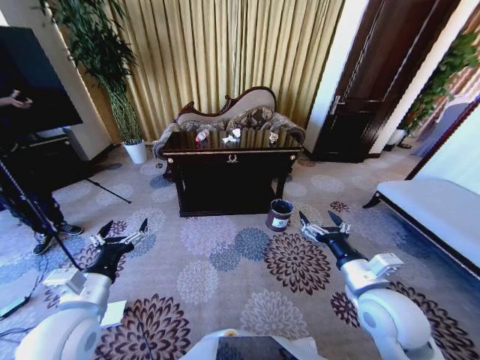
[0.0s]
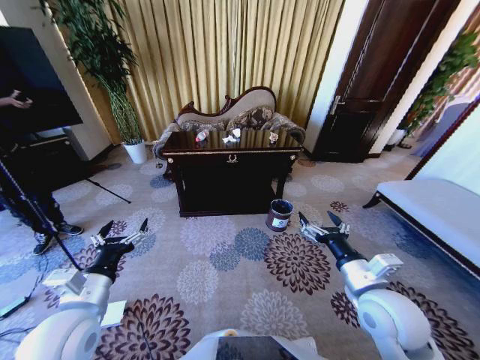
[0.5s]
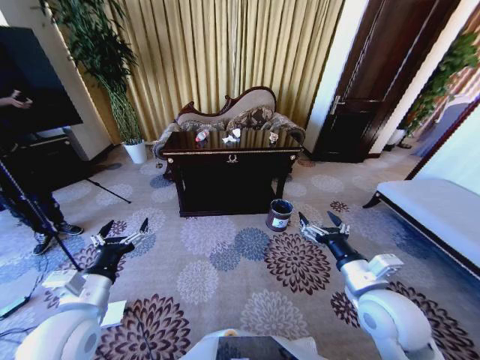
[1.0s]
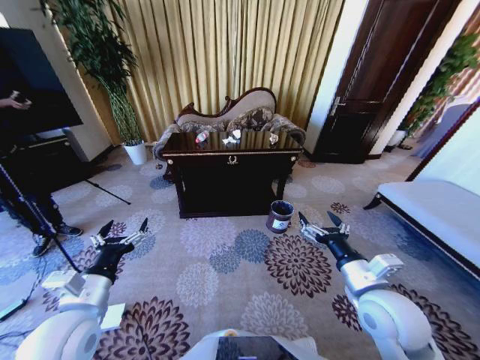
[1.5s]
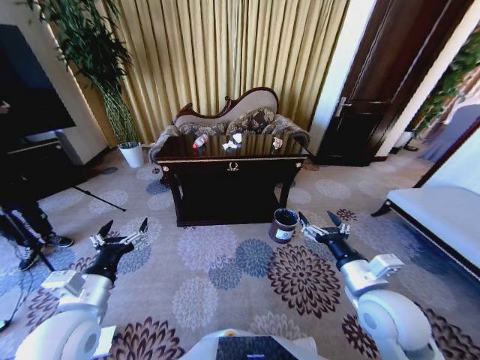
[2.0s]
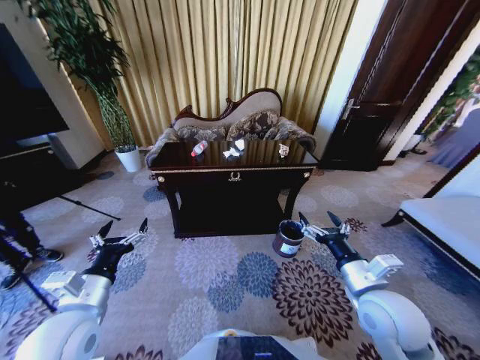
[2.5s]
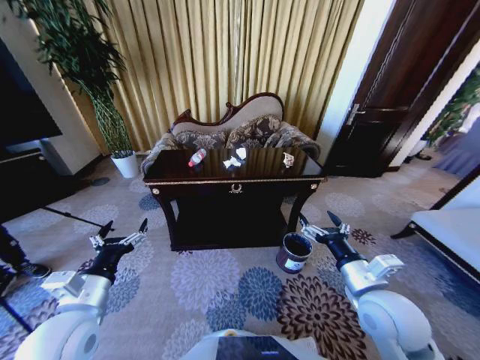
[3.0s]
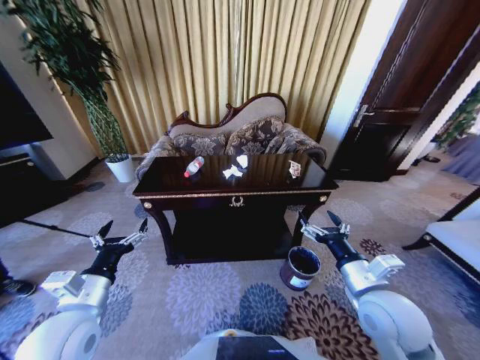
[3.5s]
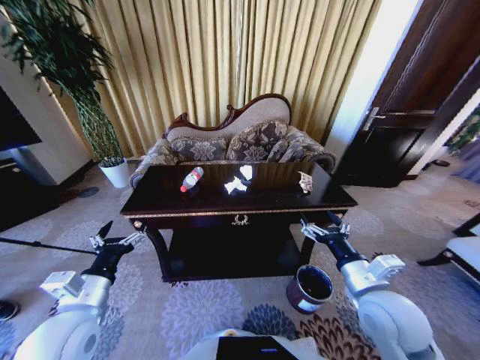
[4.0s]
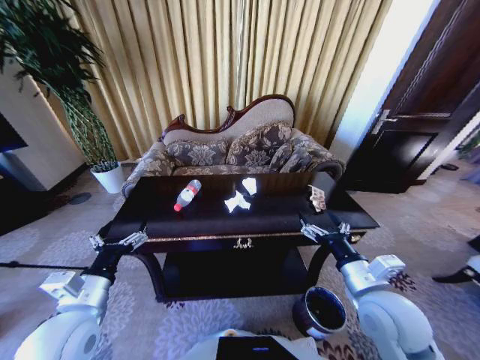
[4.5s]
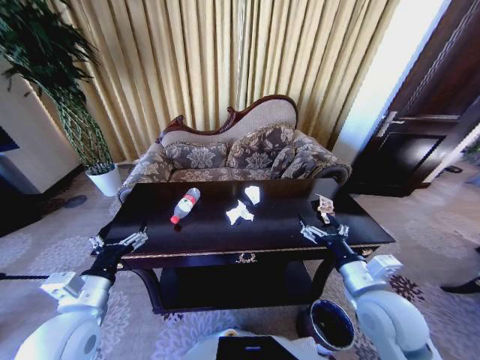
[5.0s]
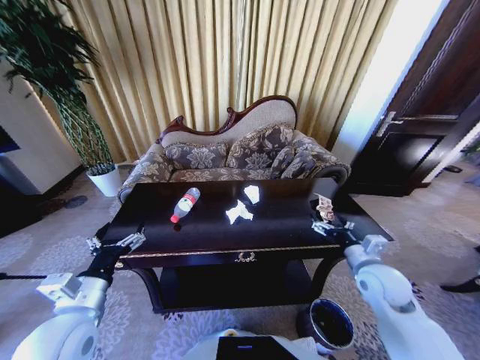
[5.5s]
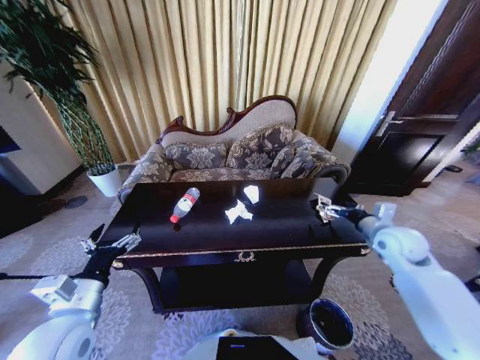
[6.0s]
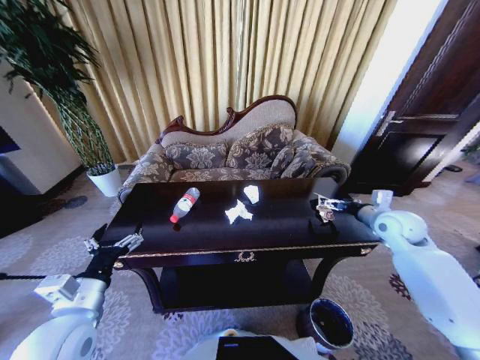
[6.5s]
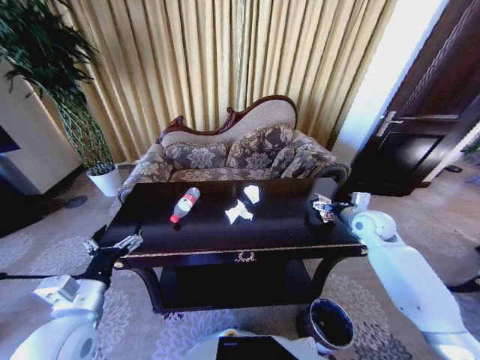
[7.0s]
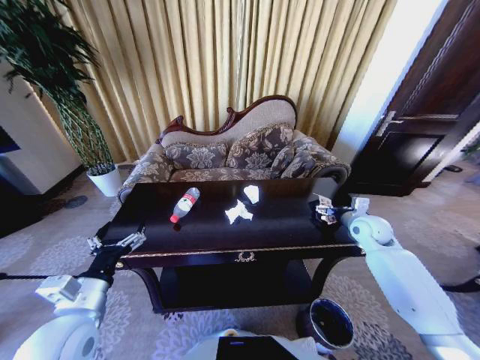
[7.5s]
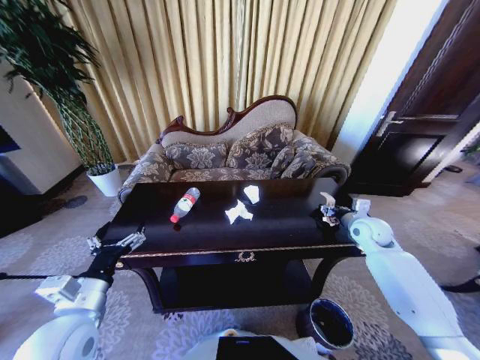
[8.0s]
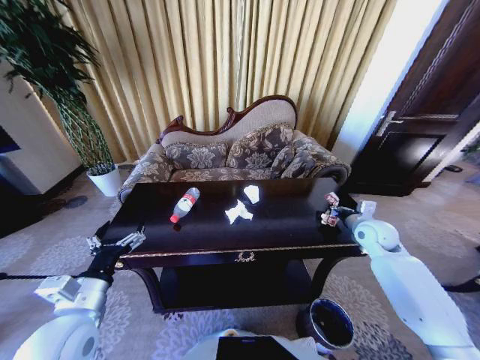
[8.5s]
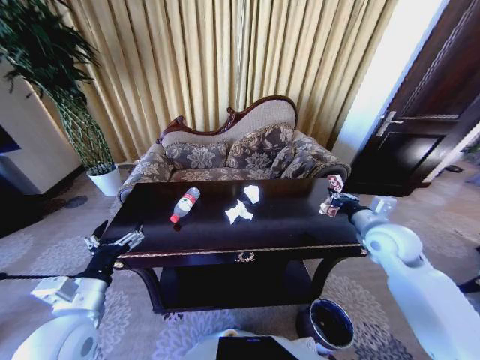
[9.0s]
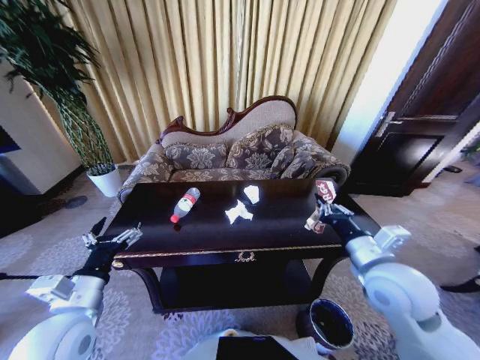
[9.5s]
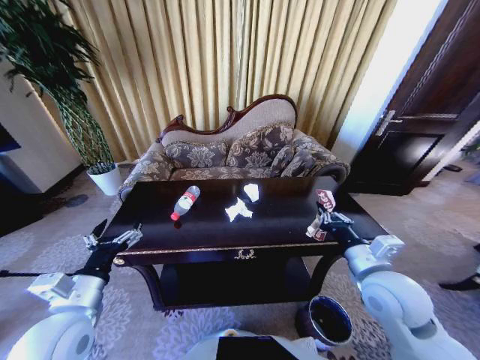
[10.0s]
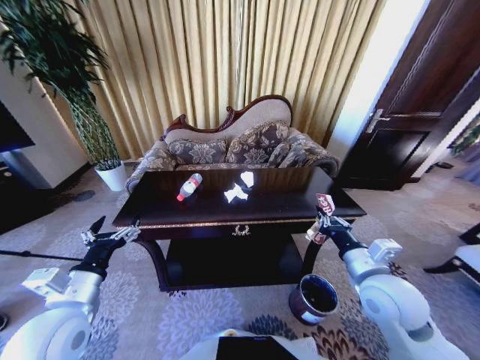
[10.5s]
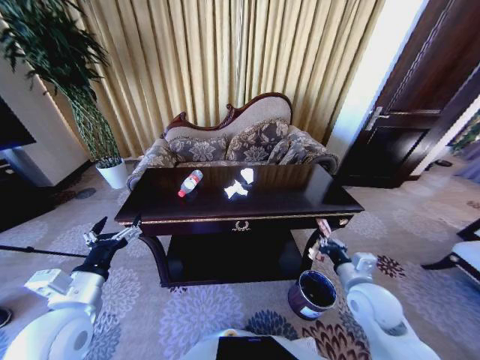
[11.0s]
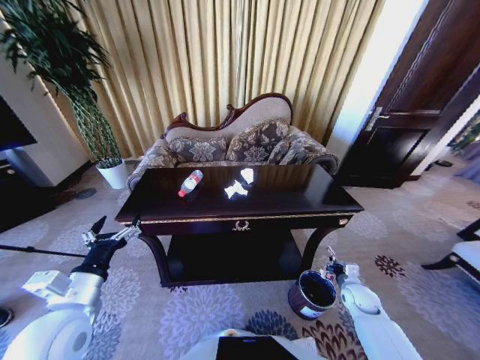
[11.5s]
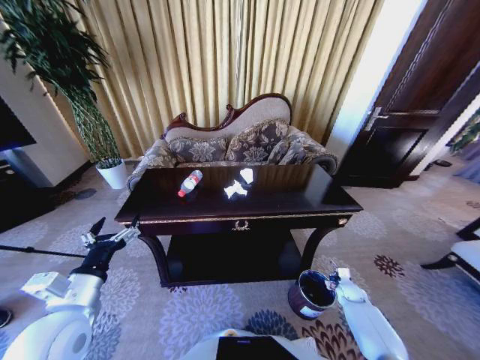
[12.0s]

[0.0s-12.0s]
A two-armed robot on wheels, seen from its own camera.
Task of the whole recording: Move to the front of the table and place the trash on the table into the trash bin.
4.0s to 6.0s: The right gripper moves forward and to the right, some 20 cm.
6.0s to 8.0s: The right gripper moves forward, about 5 cm, and closes its fingers.
8.0s to 10.0s: The right gripper goes about 25 cm backward and to the left, and closes its fingers.
10.0s to 12.0s: The right gripper shifts about 40 cm downward and to the right.

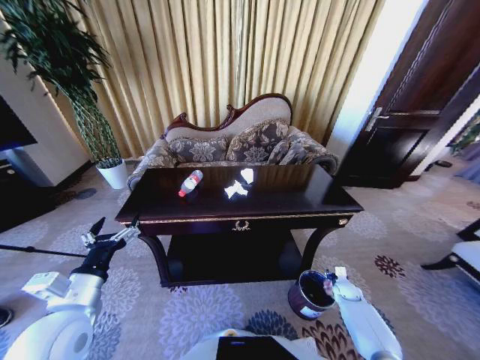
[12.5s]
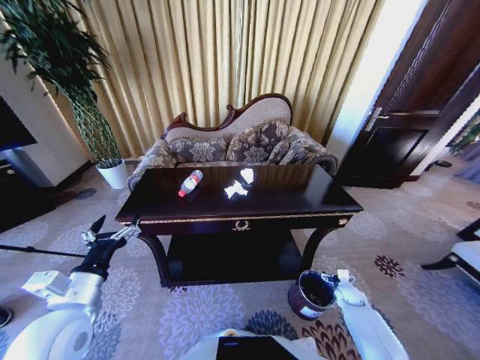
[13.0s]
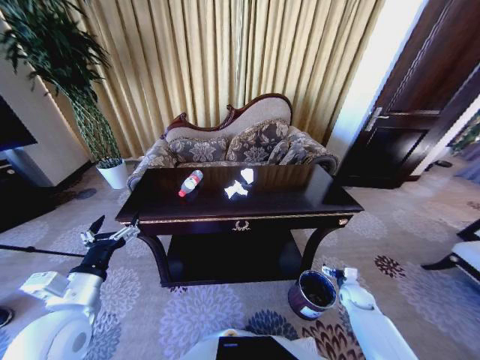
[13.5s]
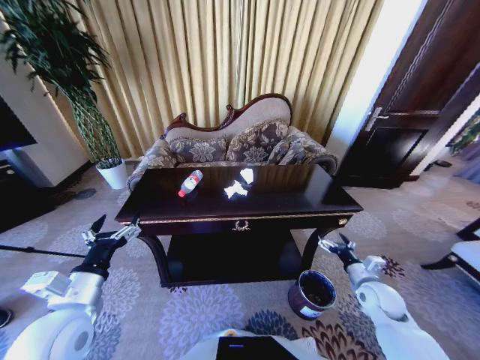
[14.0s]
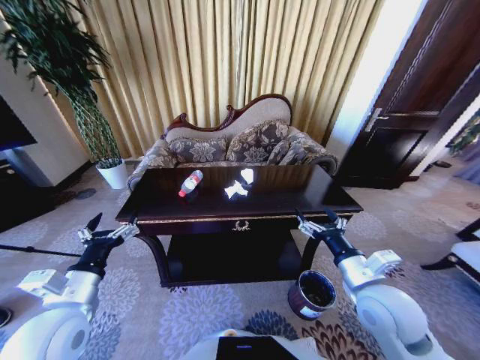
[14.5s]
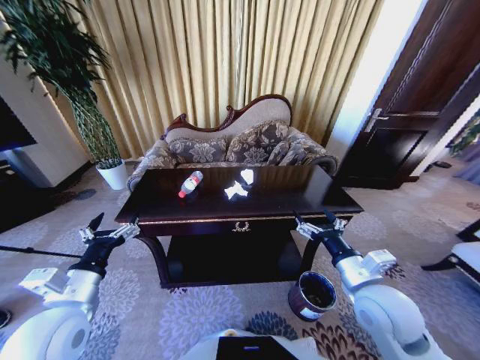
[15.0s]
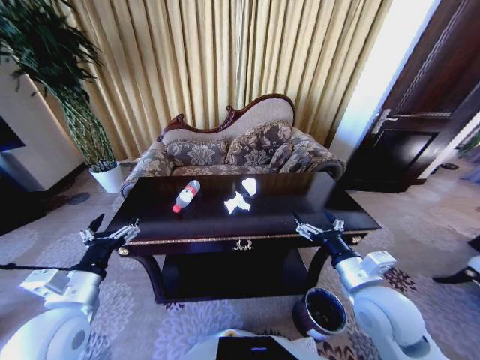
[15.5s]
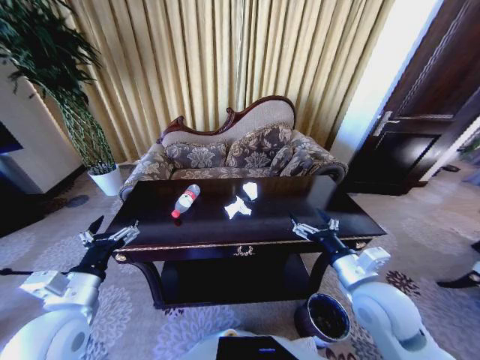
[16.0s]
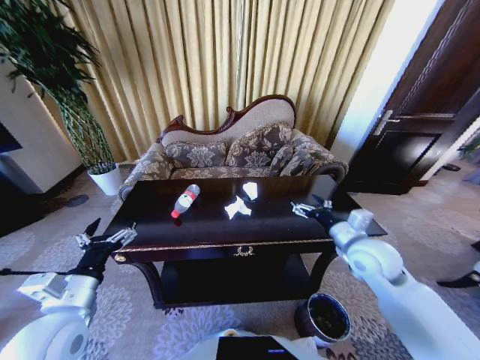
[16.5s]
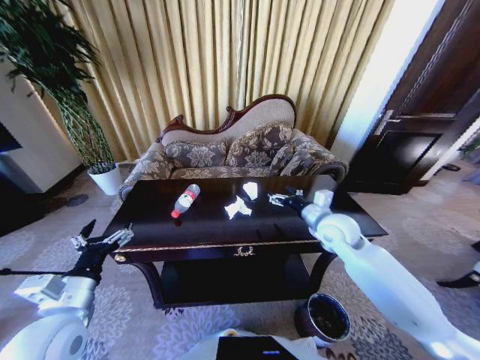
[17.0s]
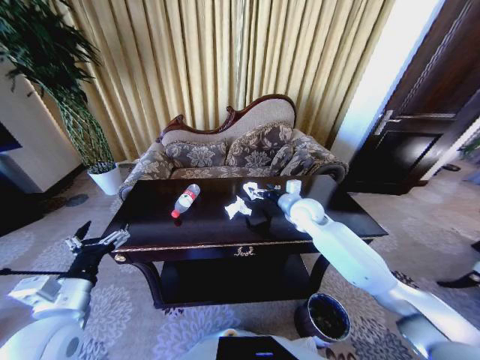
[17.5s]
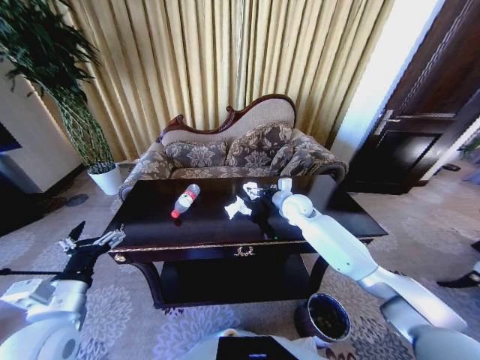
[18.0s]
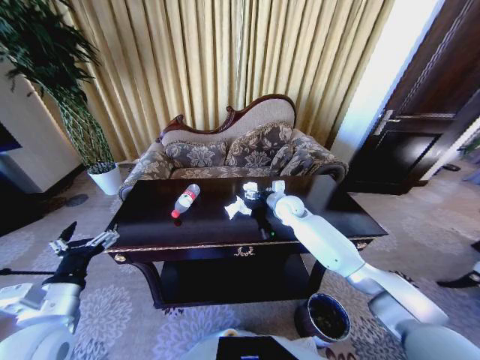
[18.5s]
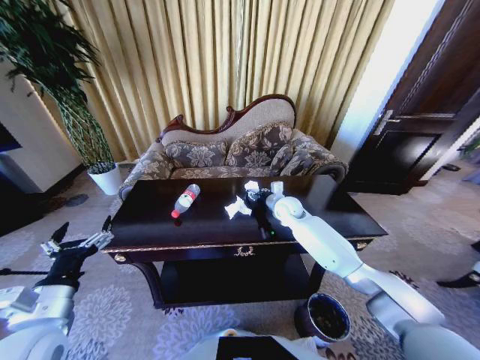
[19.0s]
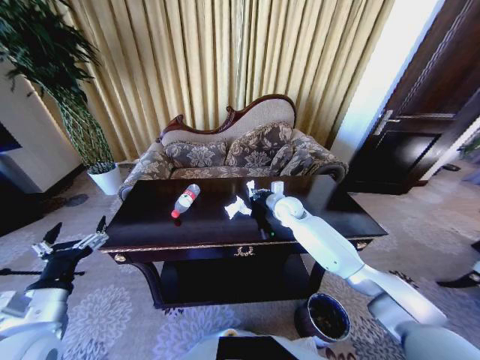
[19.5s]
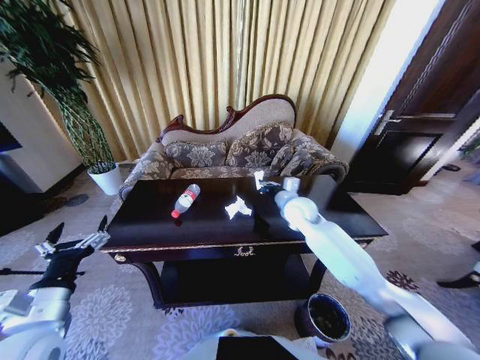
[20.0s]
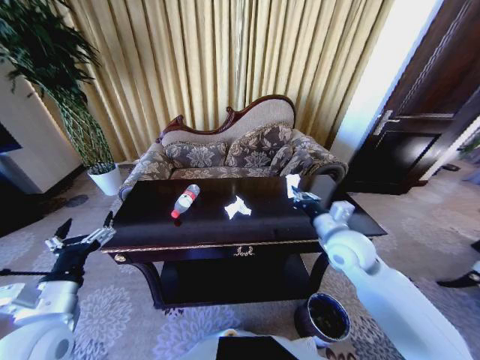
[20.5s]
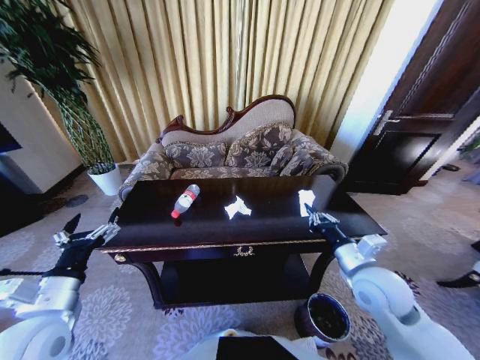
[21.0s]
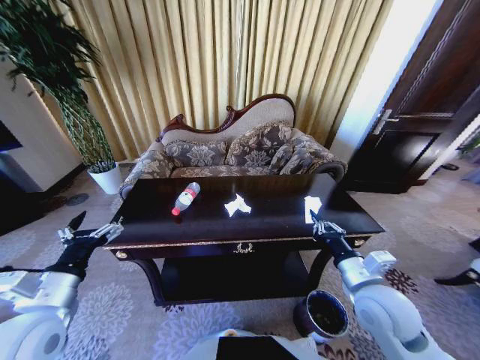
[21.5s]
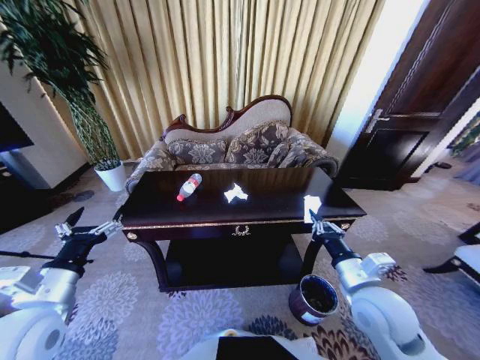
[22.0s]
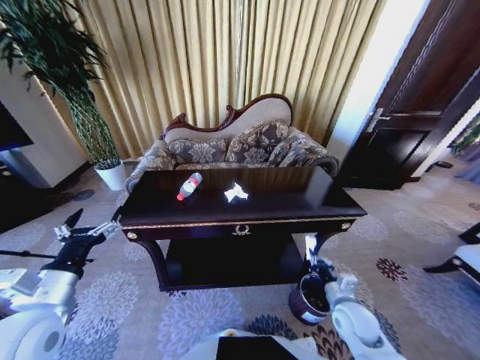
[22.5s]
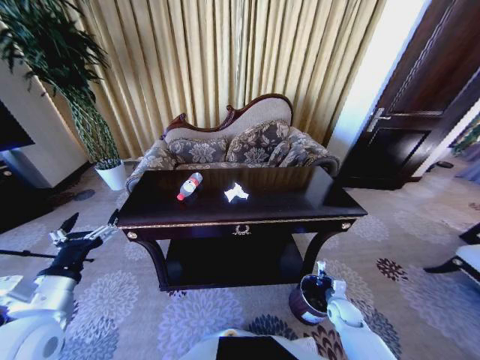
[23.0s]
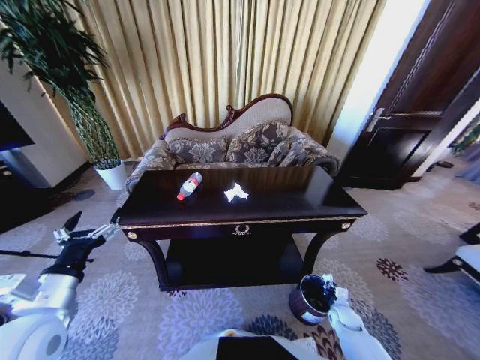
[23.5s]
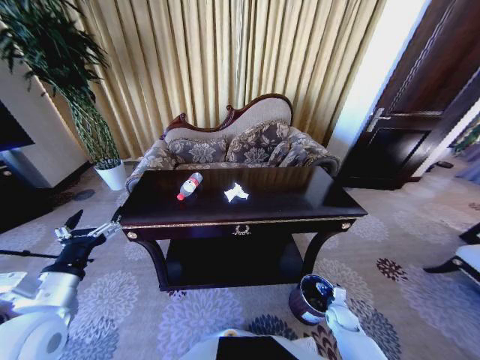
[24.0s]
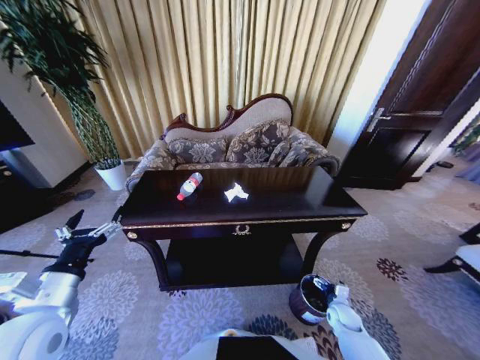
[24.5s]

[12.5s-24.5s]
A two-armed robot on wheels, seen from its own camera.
Task of the whole recording: Move to the front of the table and place the trash on the table into the trash bin.
12.5s to 14.5s: The right gripper heads upward and to the left, covering approximately 40 cm, and opens.
14.5s to 16.5s: The right gripper goes about 10 cm forward.
16.5s to 18.5s: The right gripper is displaced forward and to the left by about 25 cm.
18.5s to 20.5s: The right gripper is displaced backward by some 20 cm, and closes.
20.5s to 22.5s: The right gripper moves downward and backward, about 20 cm.
22.5s to 24.5s: The right gripper heads downward and to the right, covering some 20 cm, and opens up.

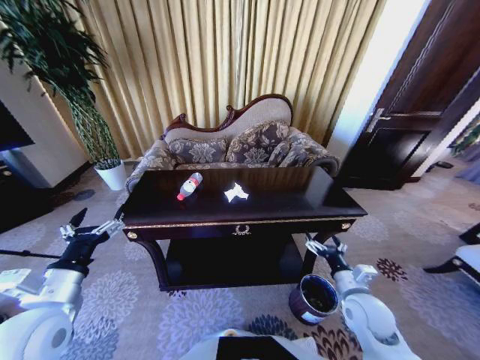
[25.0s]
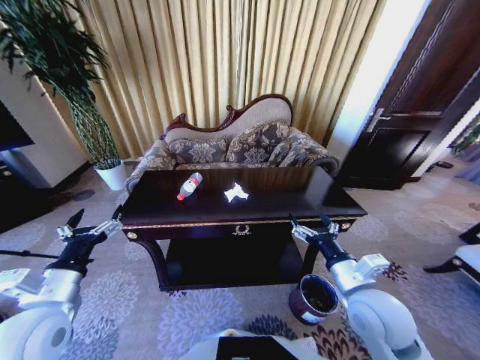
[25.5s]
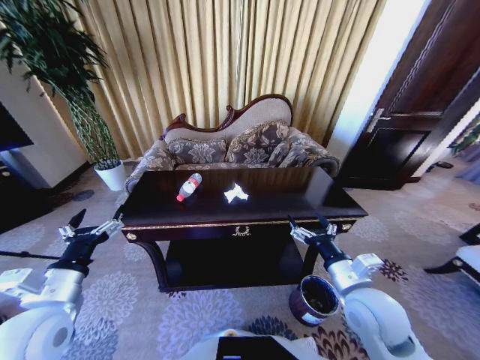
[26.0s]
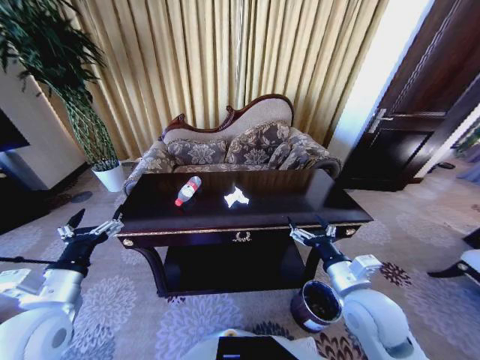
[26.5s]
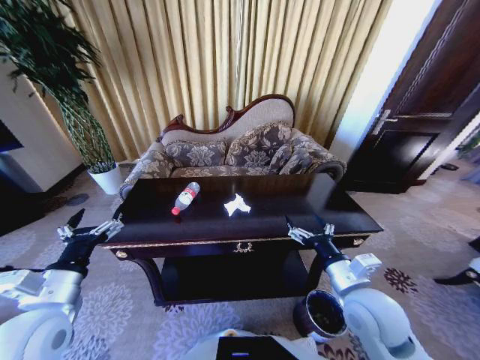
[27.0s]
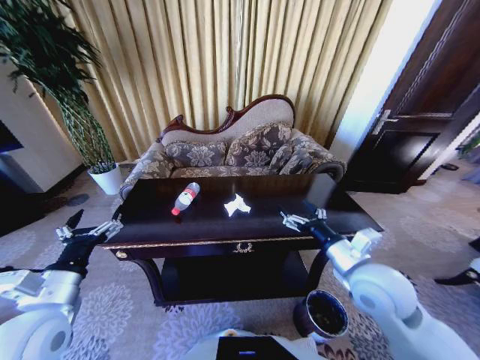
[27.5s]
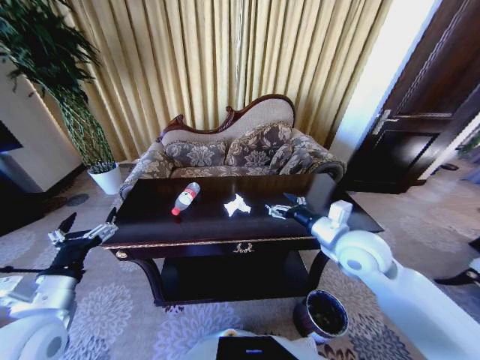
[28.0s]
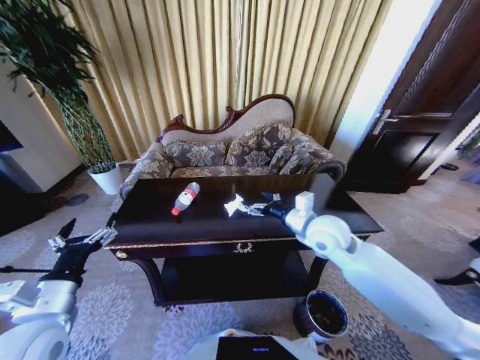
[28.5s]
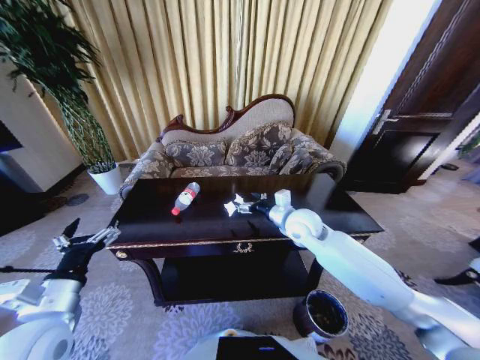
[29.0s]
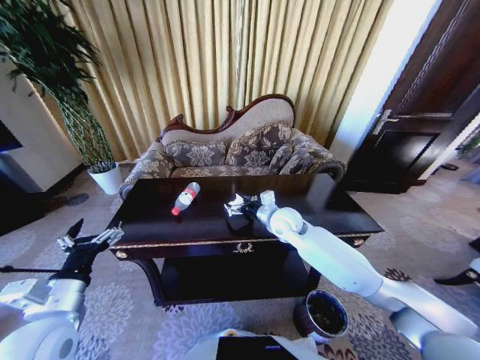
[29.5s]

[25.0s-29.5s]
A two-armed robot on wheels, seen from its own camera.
Task of the whole recording: Move to the front of the table and place the trash on the table into the trash bin.
25.0s to 27.0s: The right gripper moves upward and to the left, roughly 10 cm.
27.0s to 29.5s: The right gripper moves forward and to the left, approximately 25 cm.
